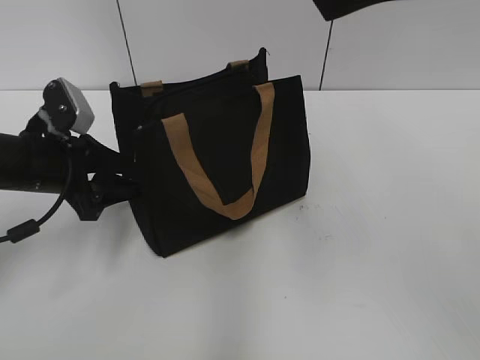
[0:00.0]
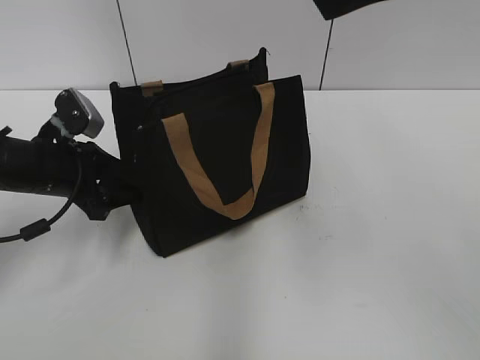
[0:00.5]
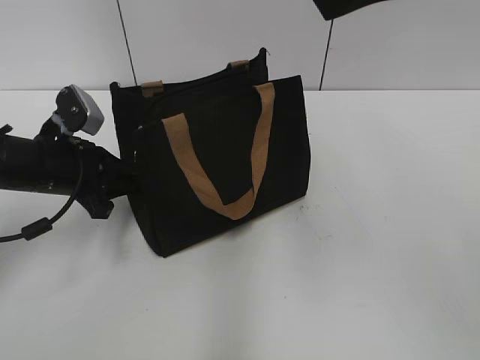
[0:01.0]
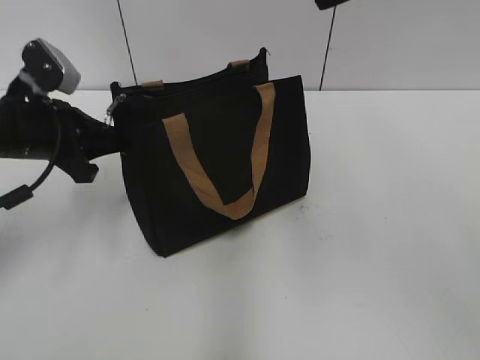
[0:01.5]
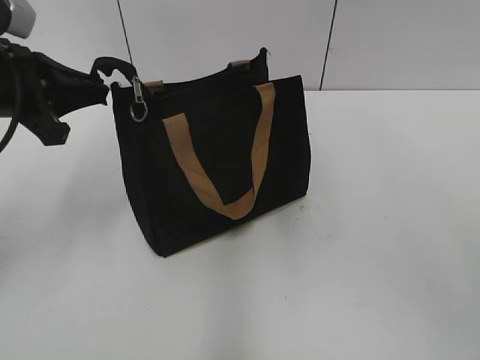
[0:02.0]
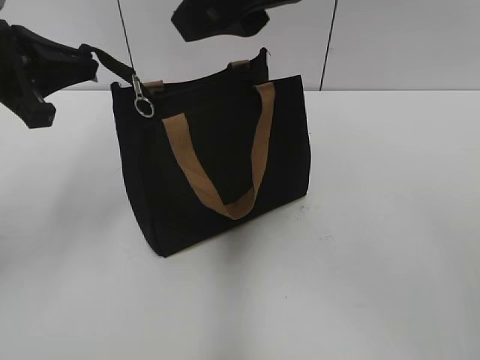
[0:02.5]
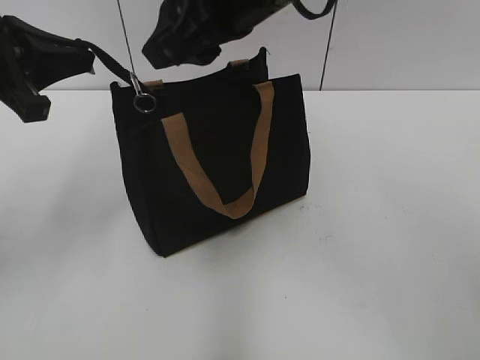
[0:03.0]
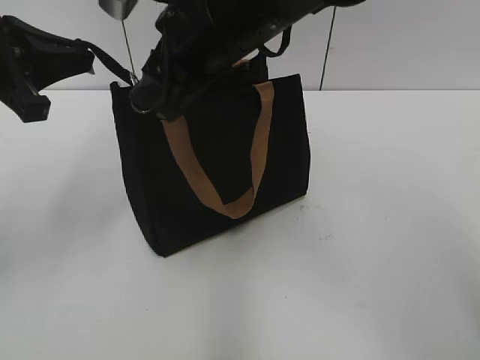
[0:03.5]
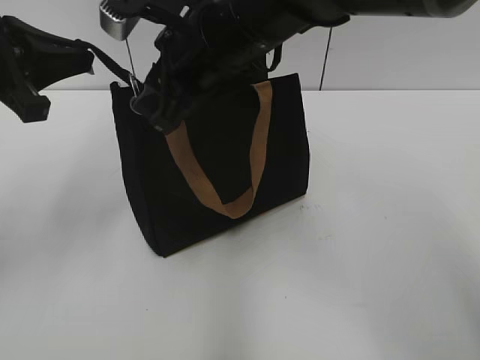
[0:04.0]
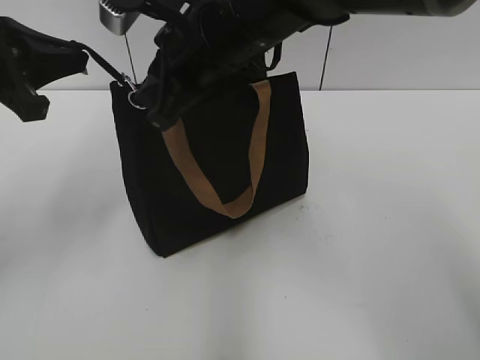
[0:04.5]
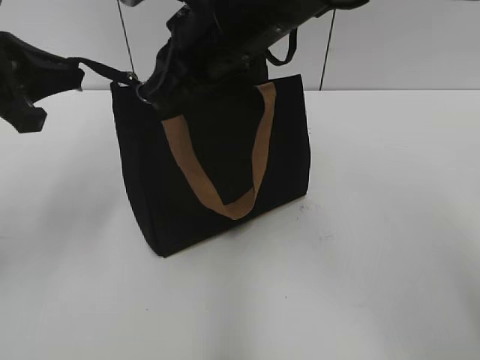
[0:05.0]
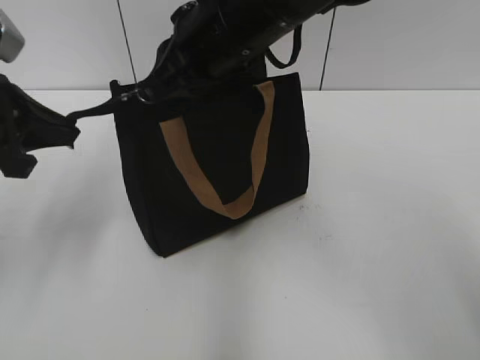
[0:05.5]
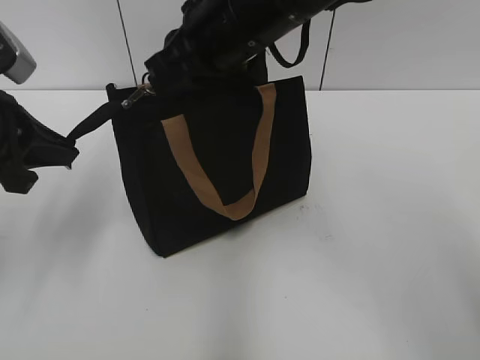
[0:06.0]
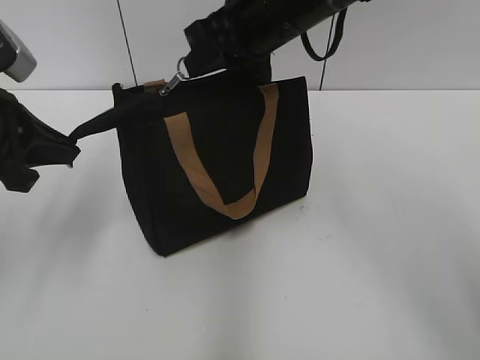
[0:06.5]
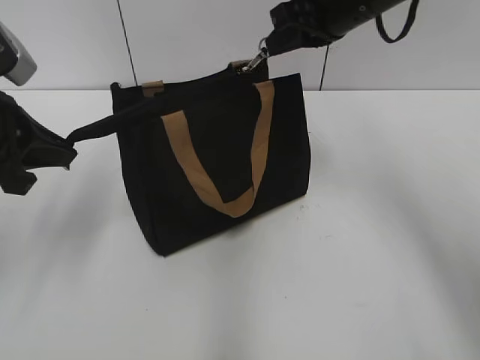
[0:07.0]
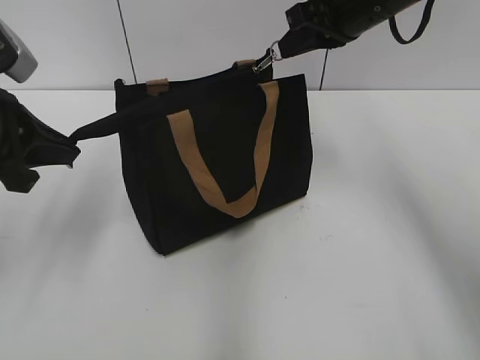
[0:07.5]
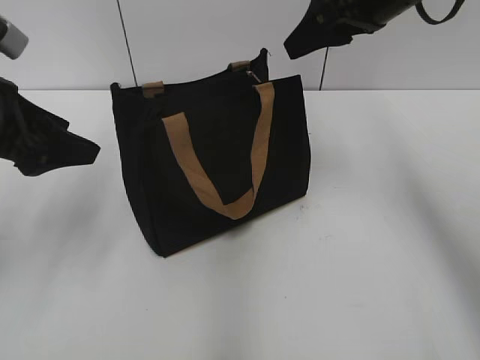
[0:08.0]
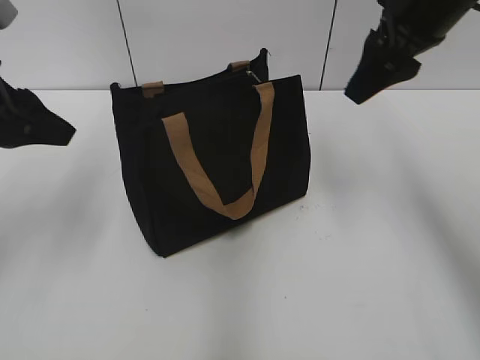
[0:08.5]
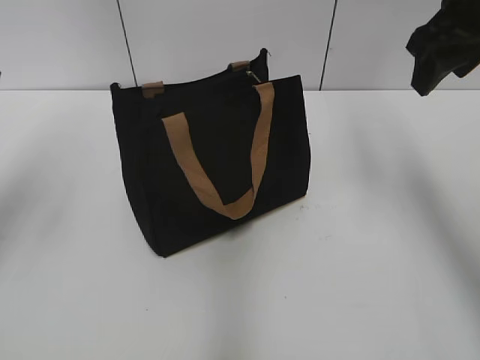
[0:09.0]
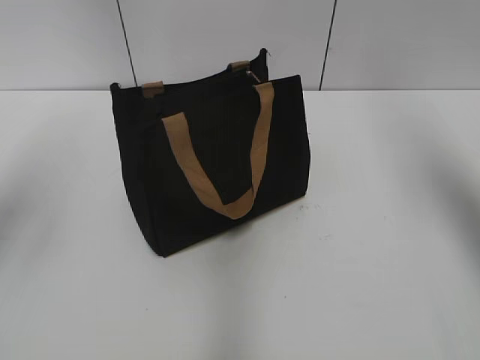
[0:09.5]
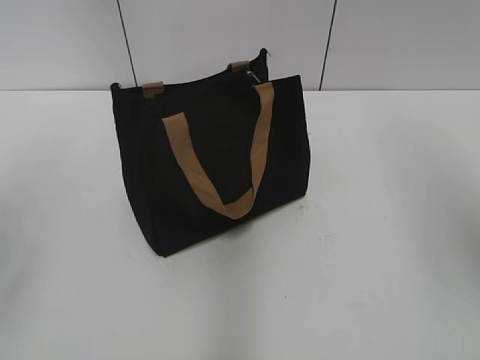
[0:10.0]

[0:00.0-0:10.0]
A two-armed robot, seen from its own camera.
Step, 0:00.0 to 0:07.5: Zip up the bag with your right hand.
0:00.0 to 0:02.0: The left gripper shifts some 10 cm upward, and closes.
0:02.0 to 0:04.0: The right gripper travels downward, to the left and forward by approximately 20 cm, and closes its fingers.
0:04.0 to 0:06.0: The right gripper closes.
0:06.0 to 0:08.0: The right gripper travels to the right by roughly 15 cm, and opens up, while the left gripper opens its fingers.
0:08.0 to 0:10.0: The left gripper goes about 15 cm upward and backward. The right gripper goes approximately 20 cm backward, to the right and upward.

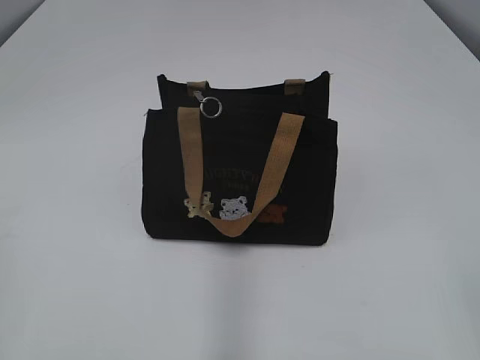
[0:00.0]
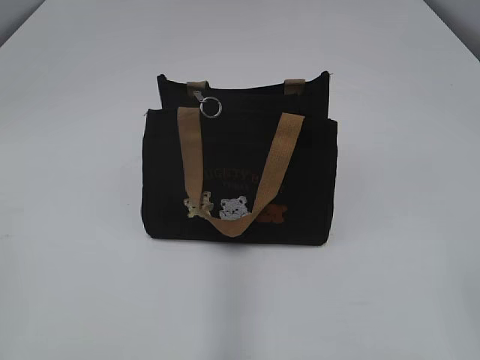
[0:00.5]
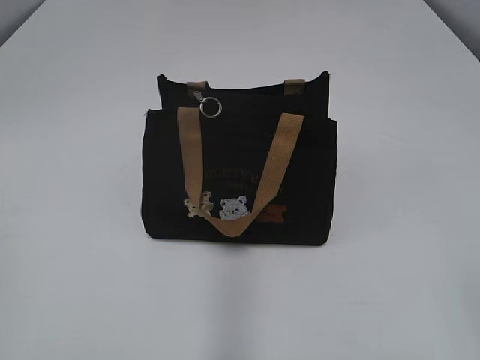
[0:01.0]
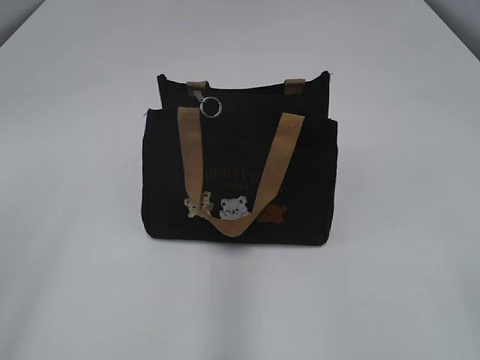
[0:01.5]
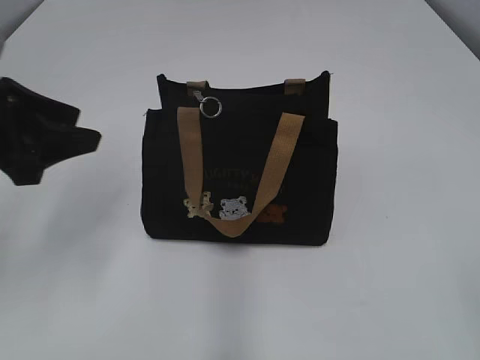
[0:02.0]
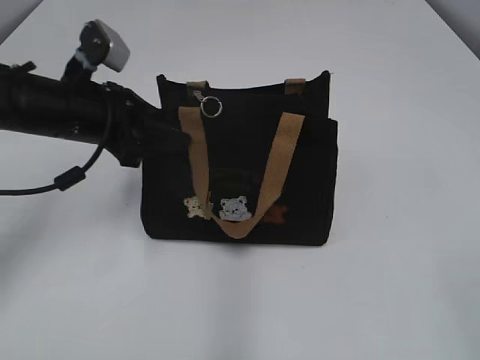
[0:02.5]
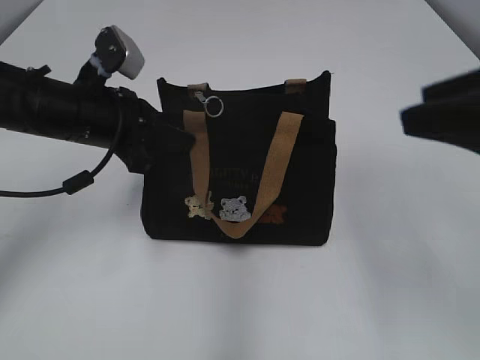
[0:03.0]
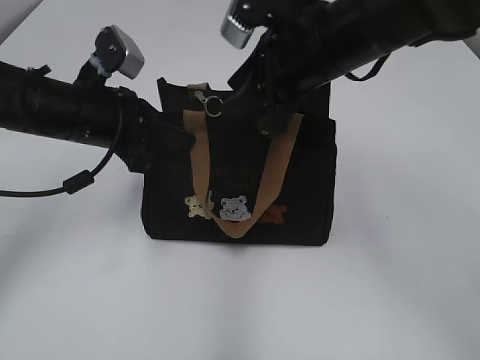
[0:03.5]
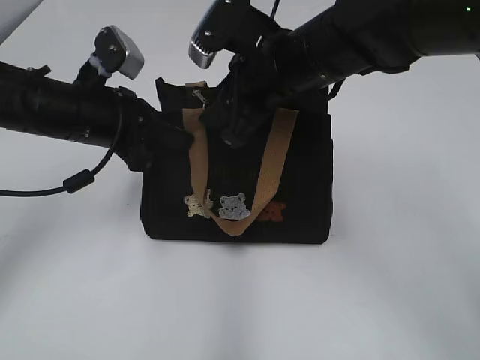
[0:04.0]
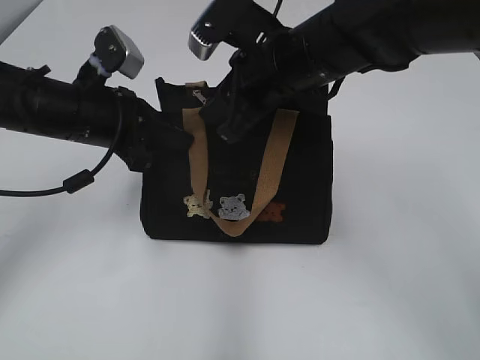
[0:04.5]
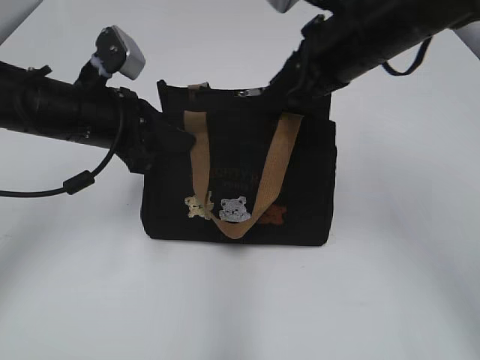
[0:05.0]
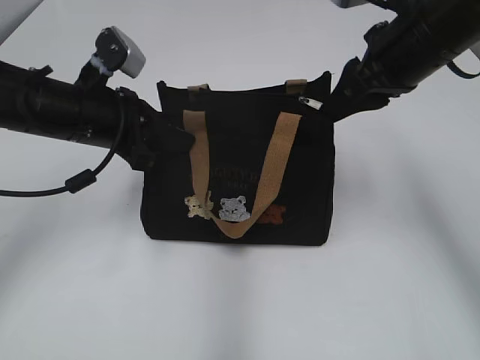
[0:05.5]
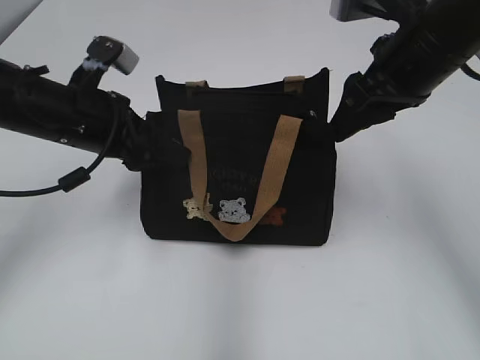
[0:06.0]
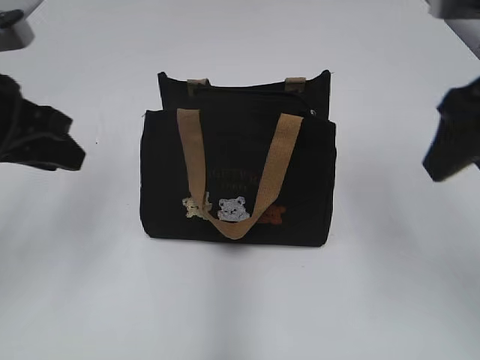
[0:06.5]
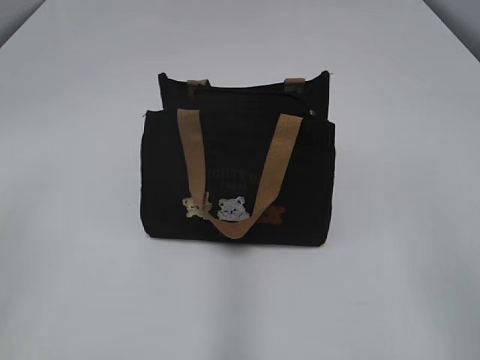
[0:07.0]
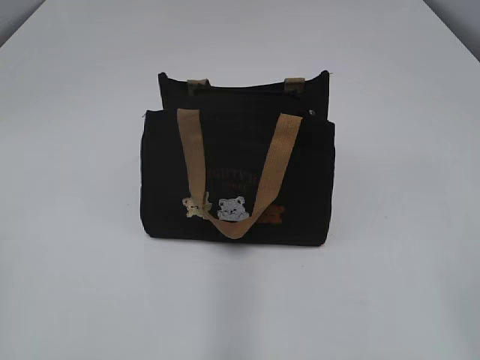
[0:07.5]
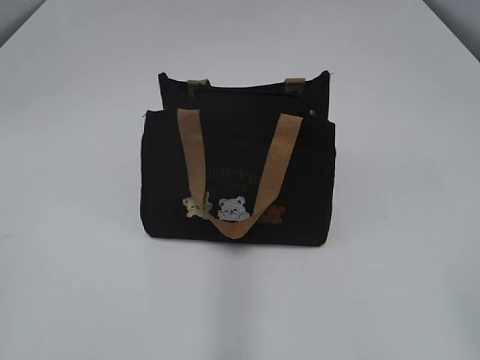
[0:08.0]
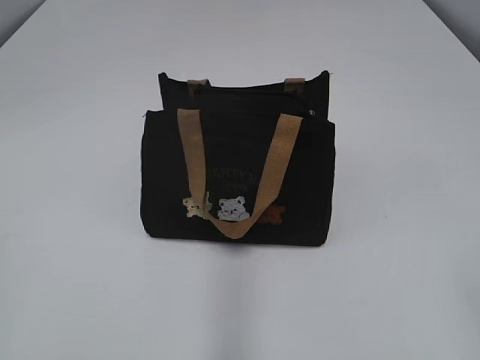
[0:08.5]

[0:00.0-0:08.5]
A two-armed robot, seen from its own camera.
Step, 0:00.0 to 0:05.5: Pull open the zipper with your right hand.
0:02.0 to 0:04.0: The right gripper travels forward and to the left by roughly 40 cm. The left gripper travels forward, to the right and downward by about 15 cm, and closes.
0:04.0 to 0:06.5: The right gripper heads to the right, backward and upward, covering about 20 cm, and opens up. The left gripper travels upward, backward and to the left by some 10 cm, and opens up.
0:06.5 to 0:08.5: Both grippers travel together backward, roughly 25 cm.

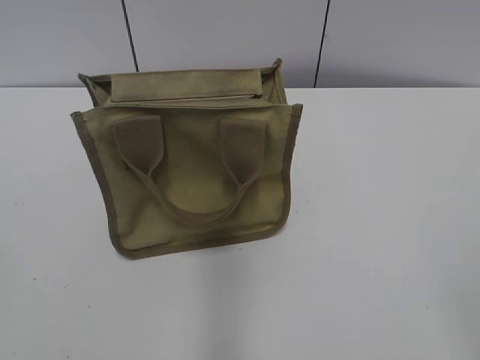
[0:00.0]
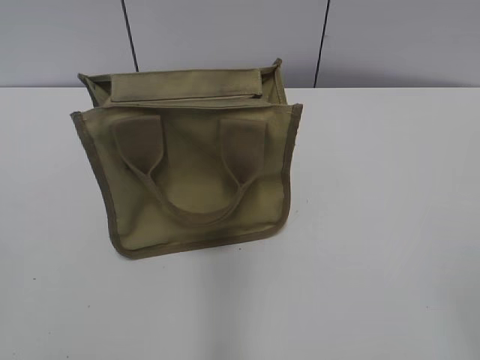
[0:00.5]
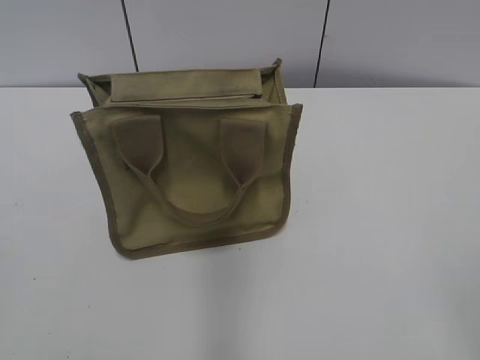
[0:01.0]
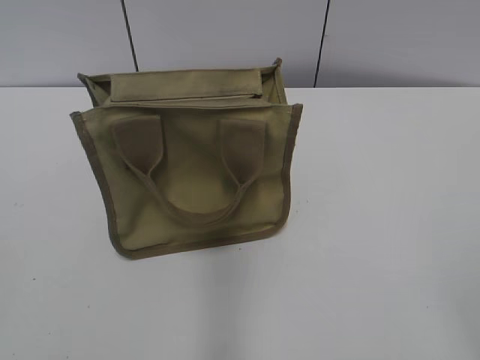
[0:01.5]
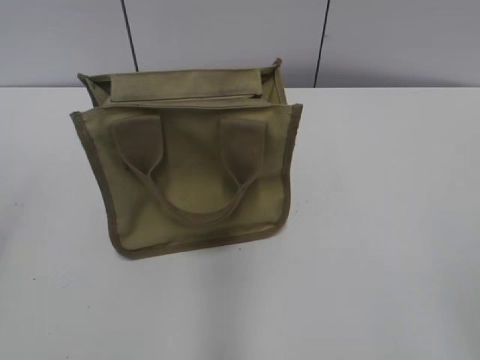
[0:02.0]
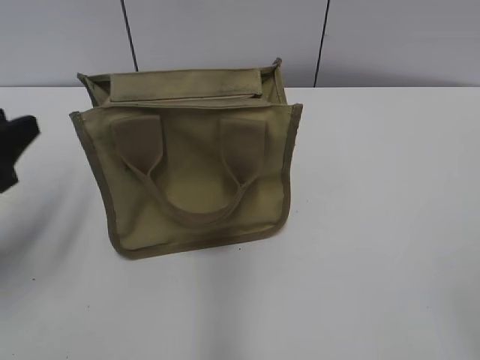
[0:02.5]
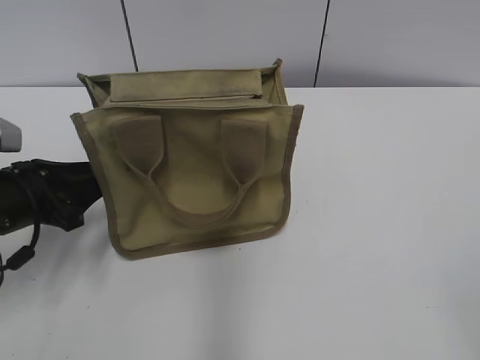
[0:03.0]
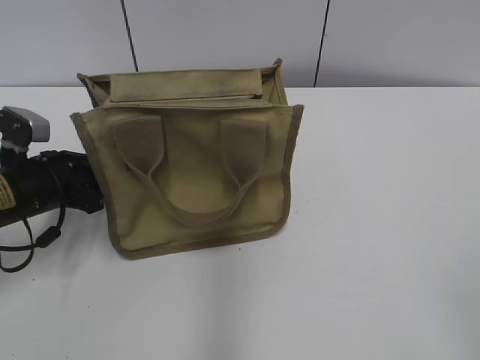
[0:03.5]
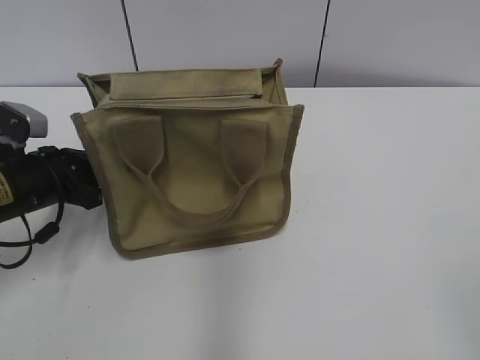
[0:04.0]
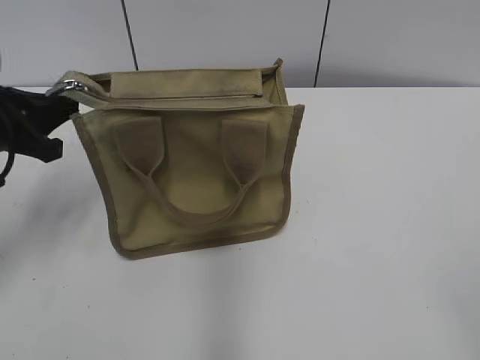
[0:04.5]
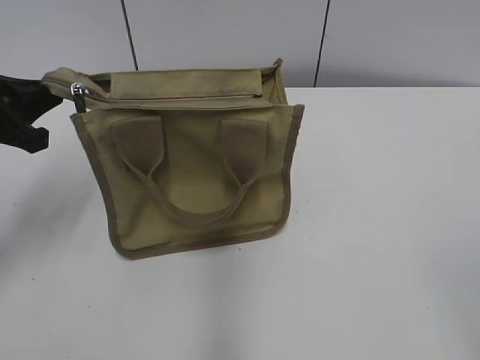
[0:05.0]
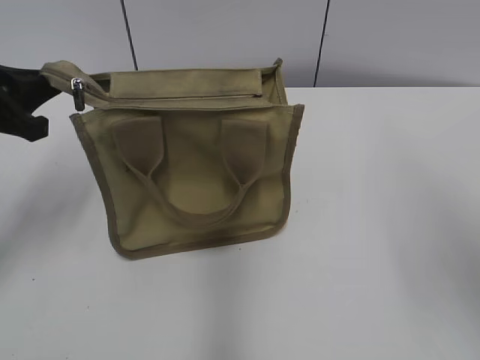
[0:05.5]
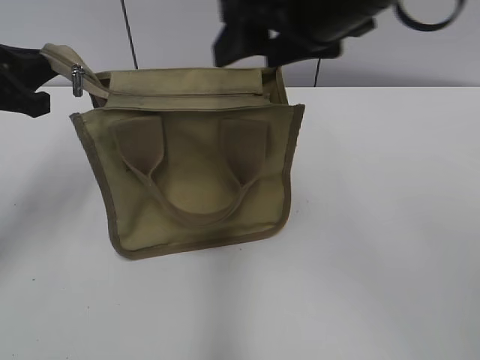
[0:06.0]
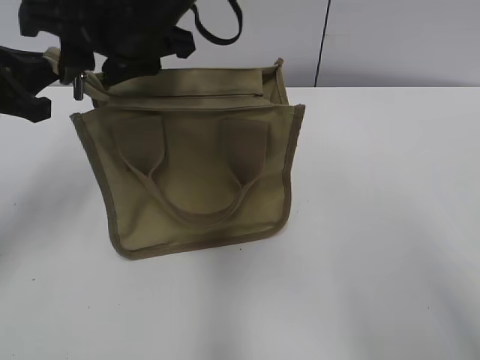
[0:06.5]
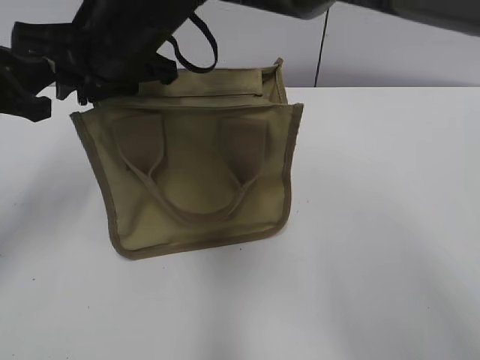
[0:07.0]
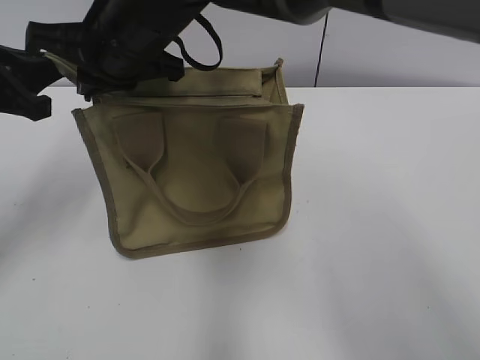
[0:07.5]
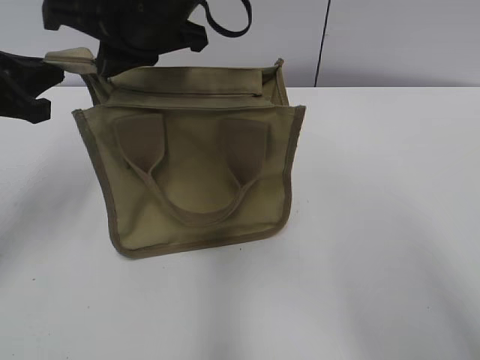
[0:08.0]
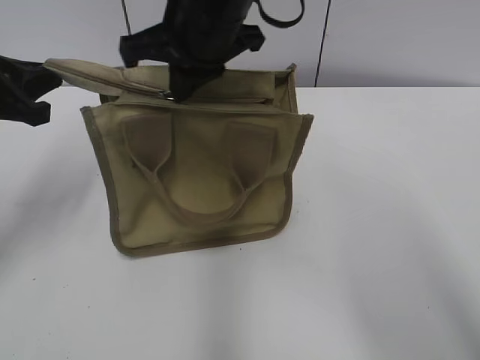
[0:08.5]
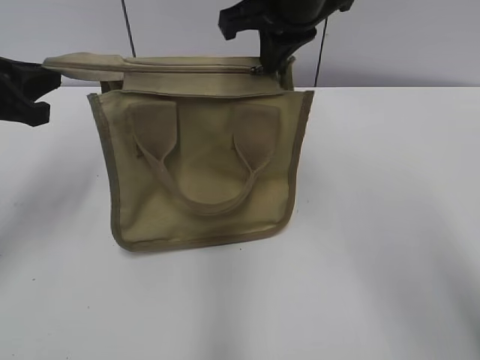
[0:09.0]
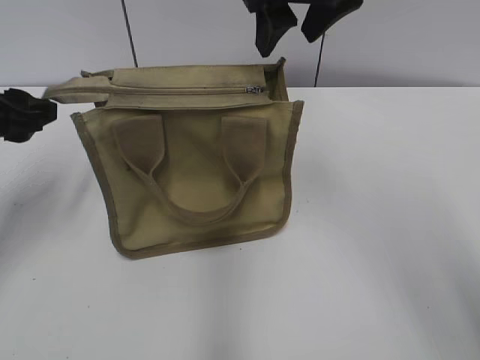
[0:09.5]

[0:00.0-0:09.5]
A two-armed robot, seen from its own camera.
Step, 0:00.0 to 0:09.0: Zip up the bag with your right hand.
0:02.0 to 0:04.0: The left gripper travels forward and downward by approximately 30 cm, and closes its fingers.
0:04.0 to 0:05.5: The left gripper heads upward, covering some 10 cm; the right gripper shifts about 15 cm forward.
0:05.5 to 0:07.5: The right gripper is displaced to the left and forward by roughly 40 cm, and closes.
0:07.5 to 0:09.5: The left gripper opens its fingers. The right gripper travels to the right and upward by approximately 20 cm, and opens its fingers.
